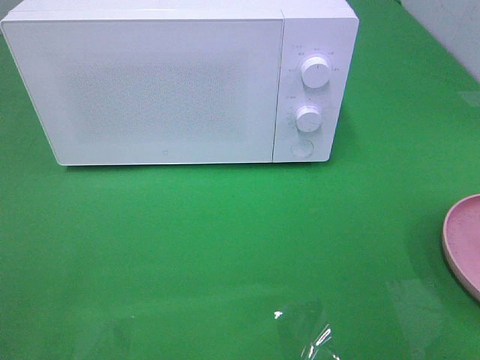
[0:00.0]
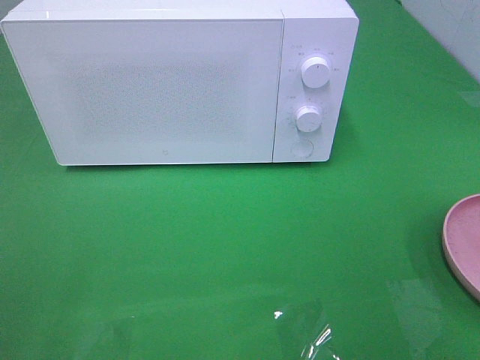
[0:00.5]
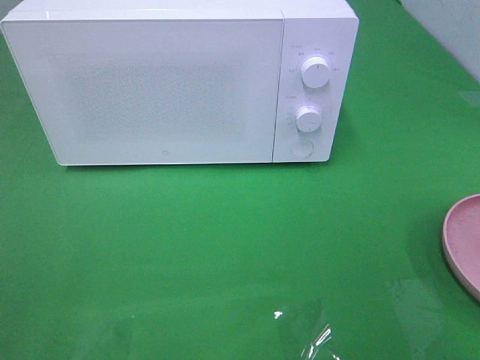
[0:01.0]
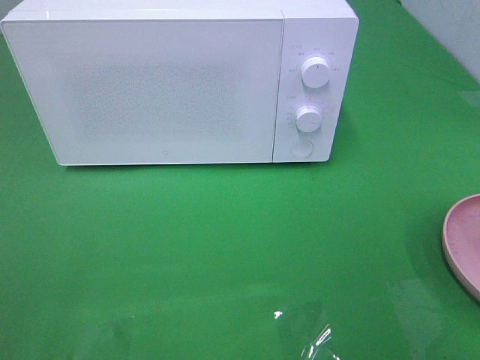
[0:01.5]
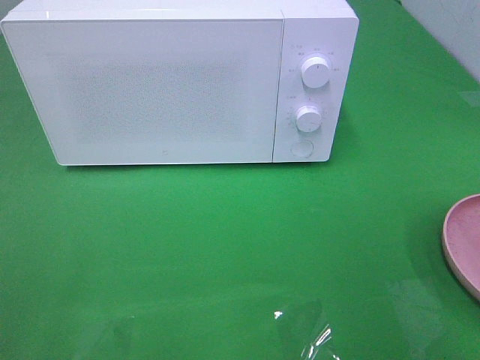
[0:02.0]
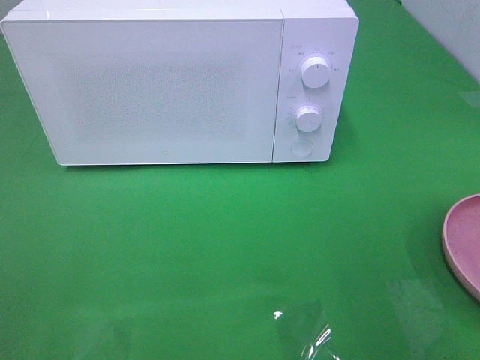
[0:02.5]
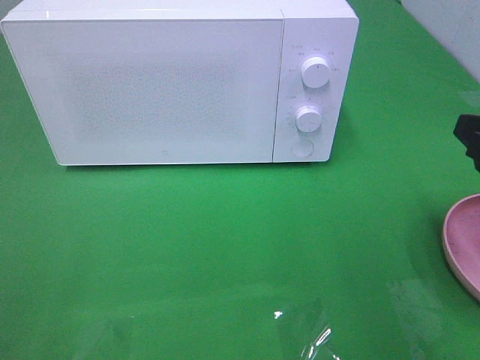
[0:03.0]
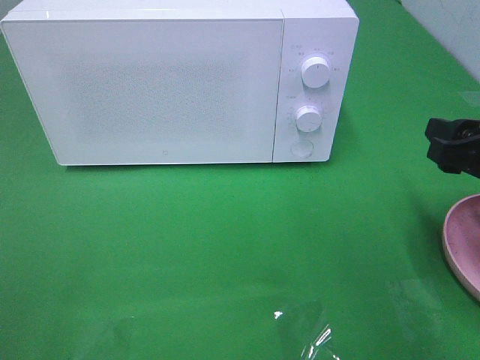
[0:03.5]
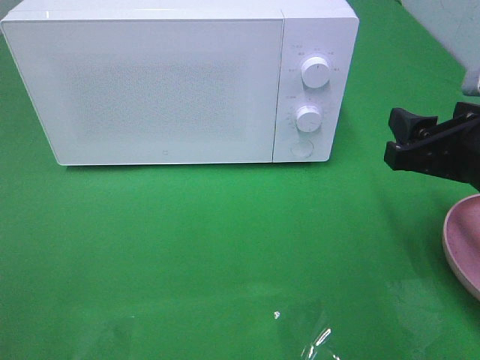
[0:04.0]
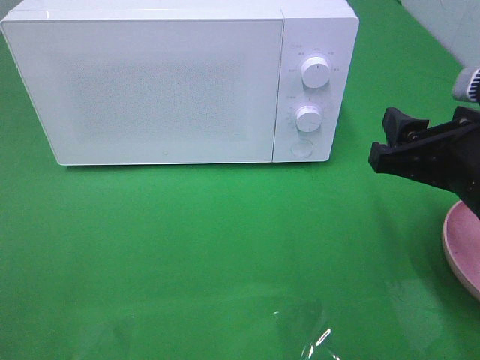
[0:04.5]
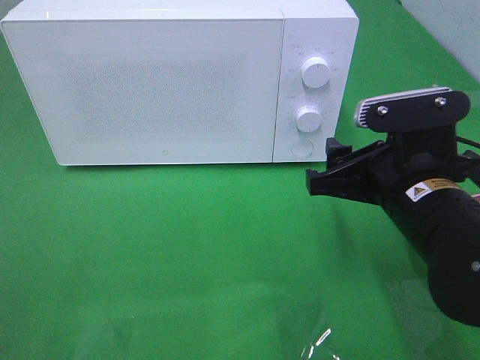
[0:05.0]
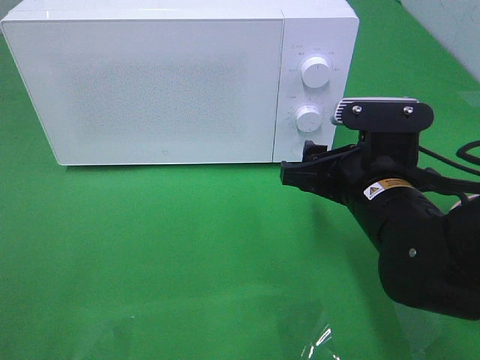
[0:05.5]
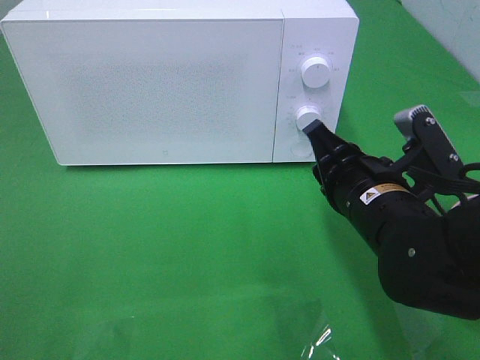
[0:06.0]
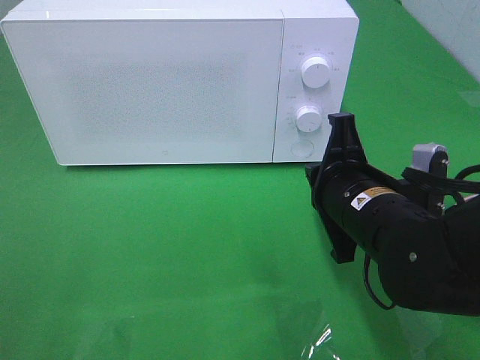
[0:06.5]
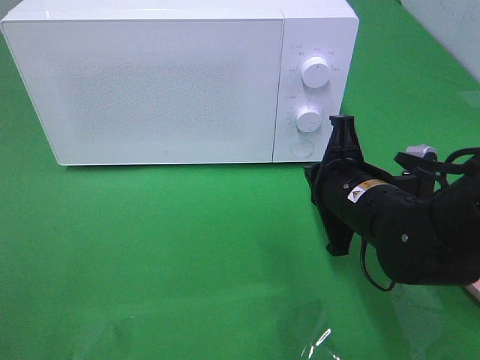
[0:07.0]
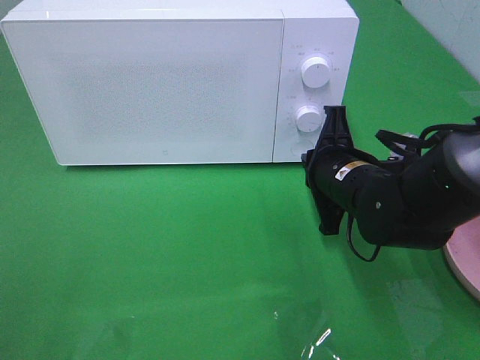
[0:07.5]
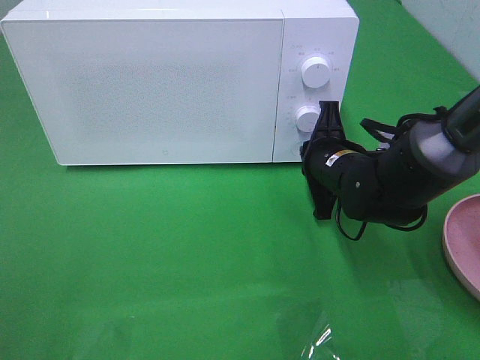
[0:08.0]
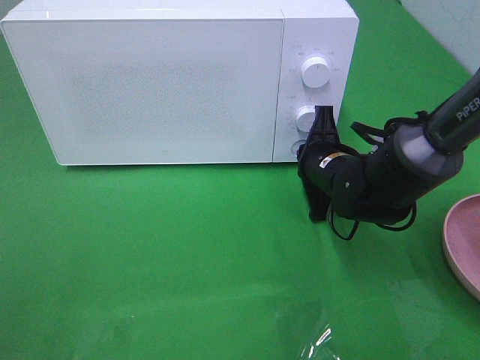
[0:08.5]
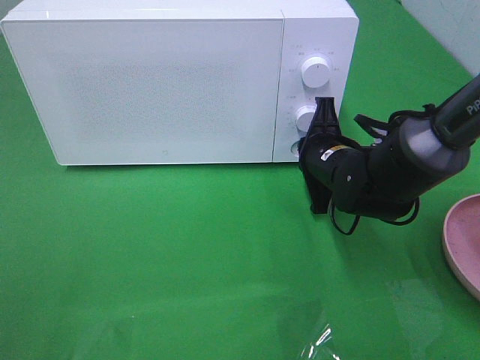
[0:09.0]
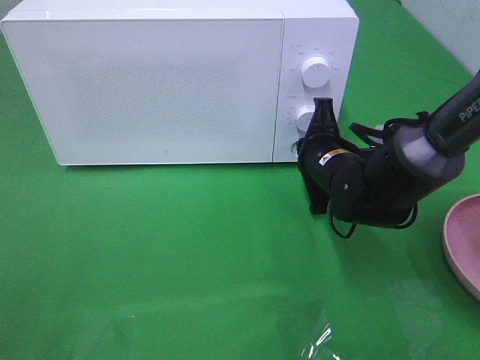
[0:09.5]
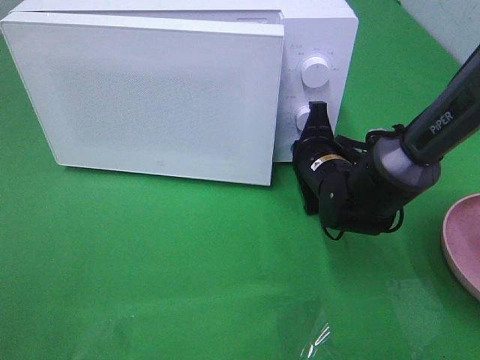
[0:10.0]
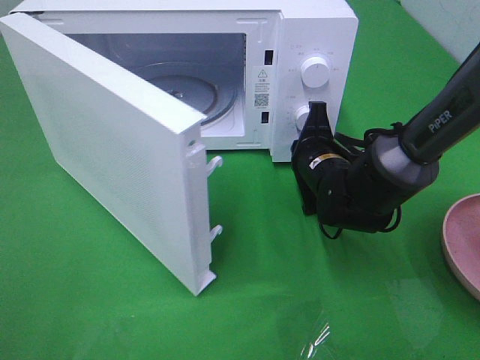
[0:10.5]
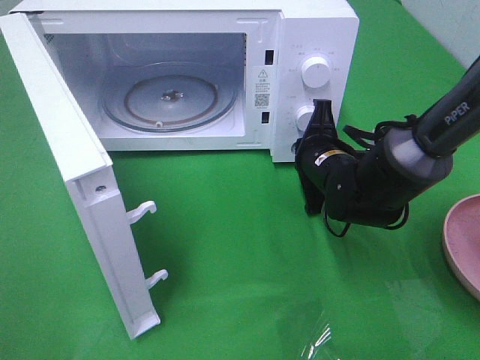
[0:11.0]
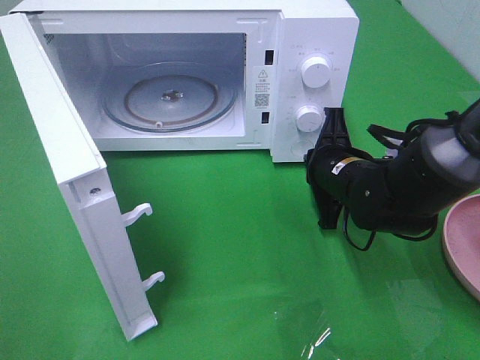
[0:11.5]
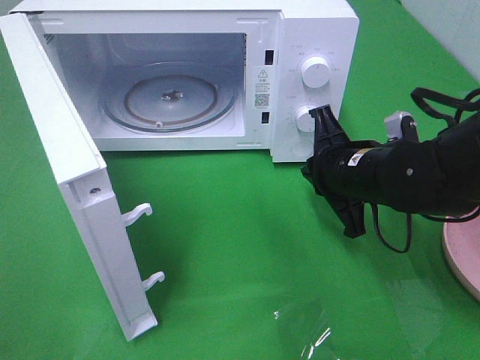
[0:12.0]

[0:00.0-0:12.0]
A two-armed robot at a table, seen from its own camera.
Task of the whole recording: Heat the burger.
Step, 0.0 to 11.5 s: Right hand: press the switch.
2.0 to 4.0 s: The right gripper travels forward, downward and to the left by some 15 cm.
4.0 to 6.0 s: The right gripper moves to the left and downward, approximately 10 cm, and closes its fingers.
6.0 to 8.0 s: The right gripper goes some 10 cm forward and downward.
8.0 to 10.0 s: The grippers make only small movements.
10.0 to 12.0 s: The right gripper heads backward and upward, covering some 10 cm.

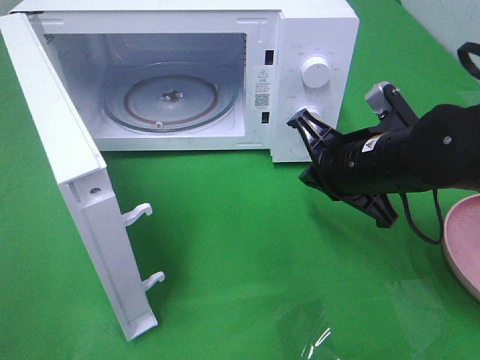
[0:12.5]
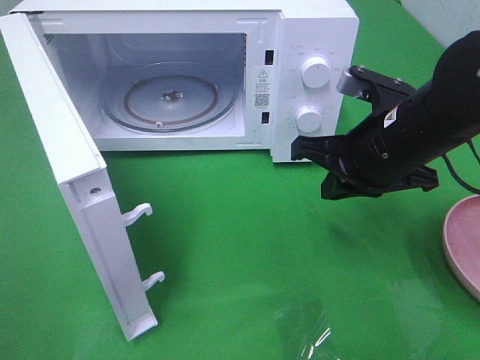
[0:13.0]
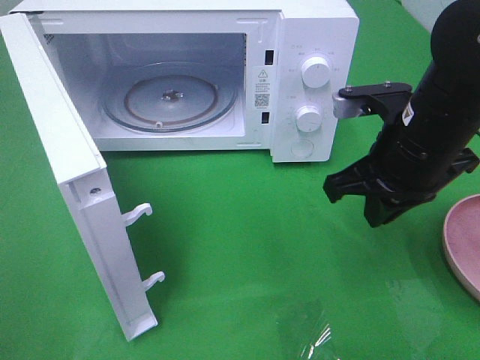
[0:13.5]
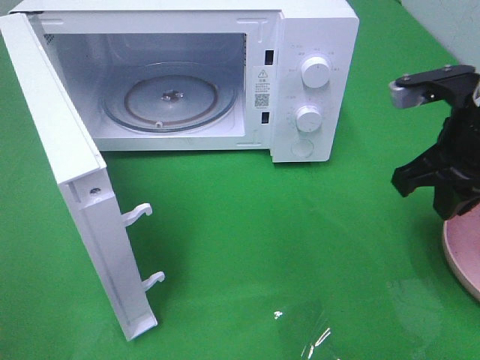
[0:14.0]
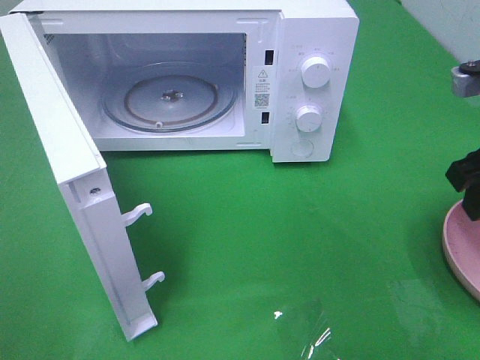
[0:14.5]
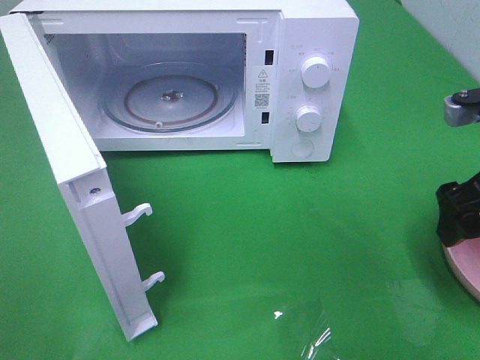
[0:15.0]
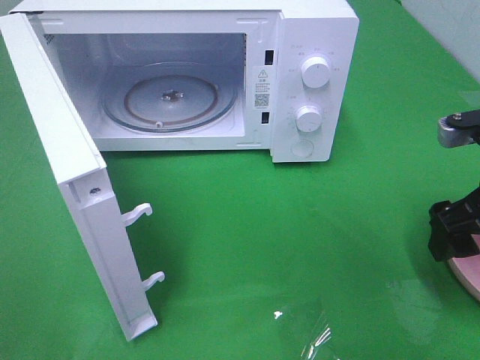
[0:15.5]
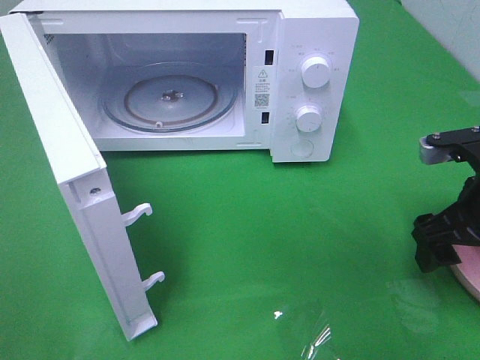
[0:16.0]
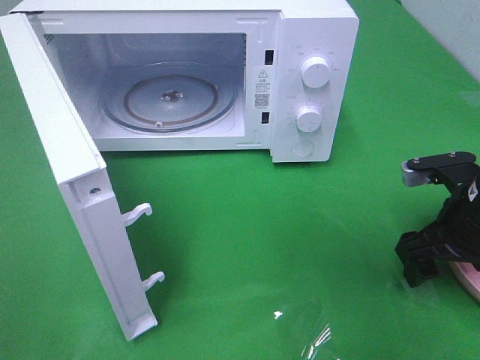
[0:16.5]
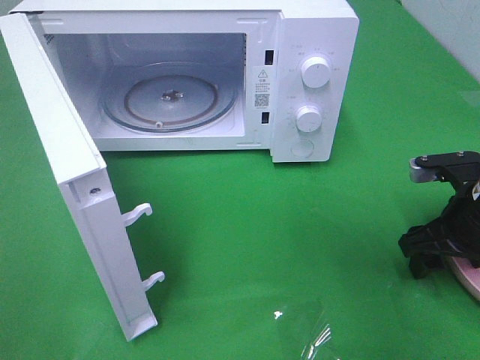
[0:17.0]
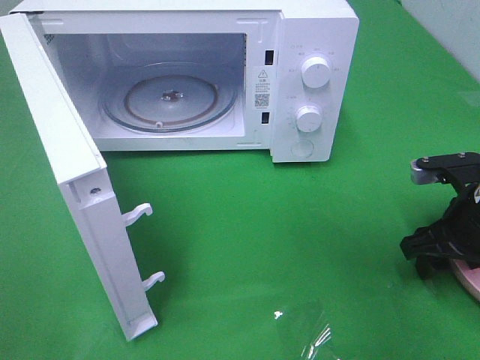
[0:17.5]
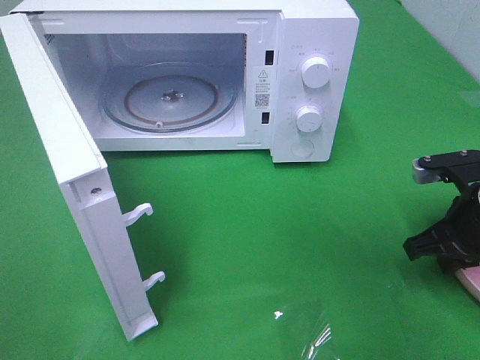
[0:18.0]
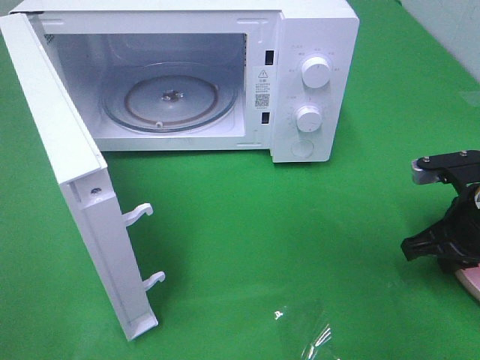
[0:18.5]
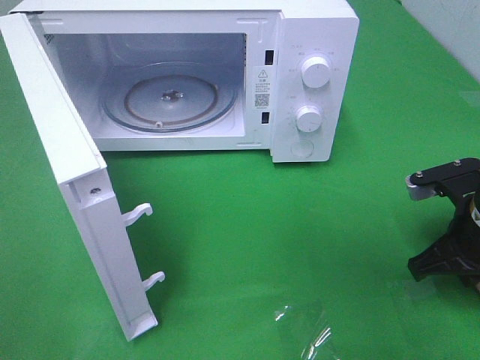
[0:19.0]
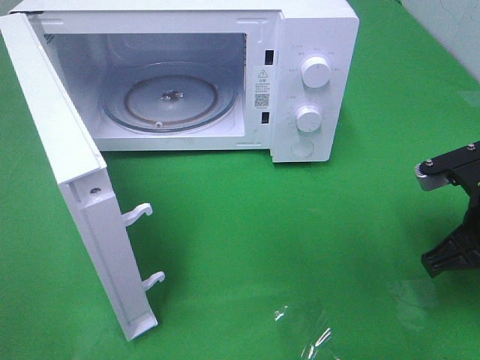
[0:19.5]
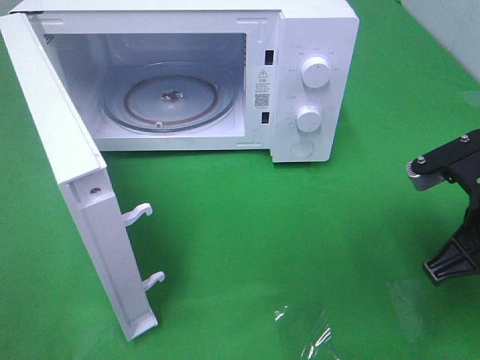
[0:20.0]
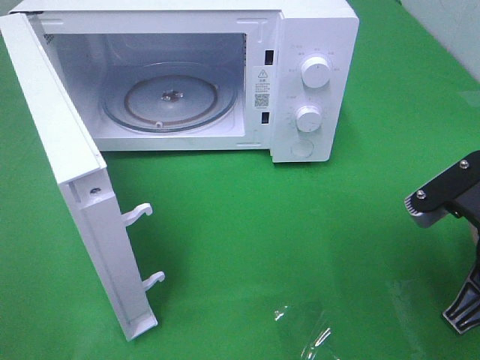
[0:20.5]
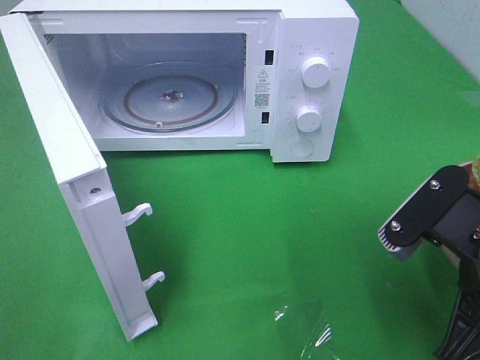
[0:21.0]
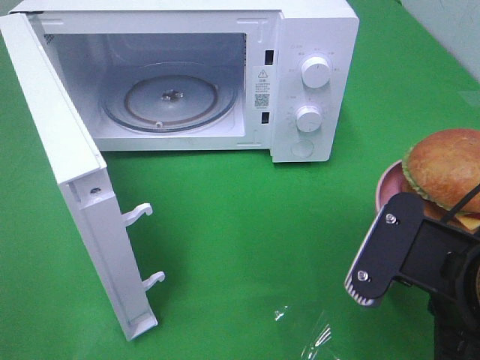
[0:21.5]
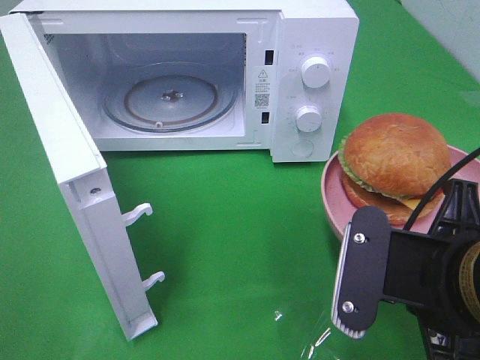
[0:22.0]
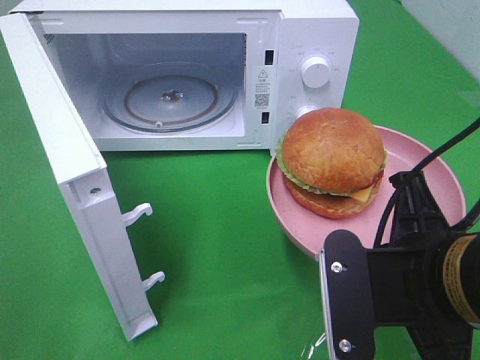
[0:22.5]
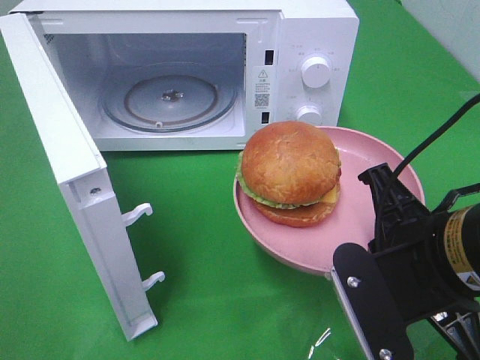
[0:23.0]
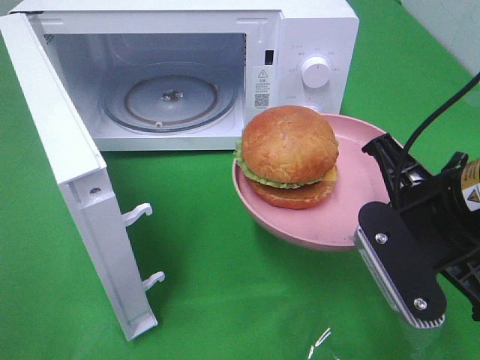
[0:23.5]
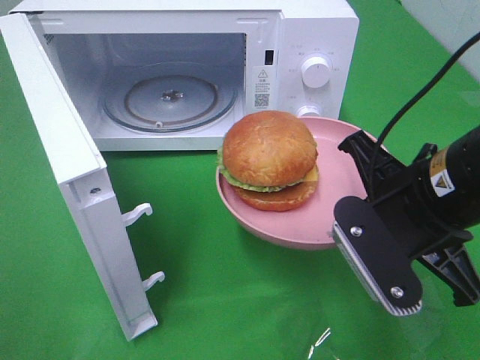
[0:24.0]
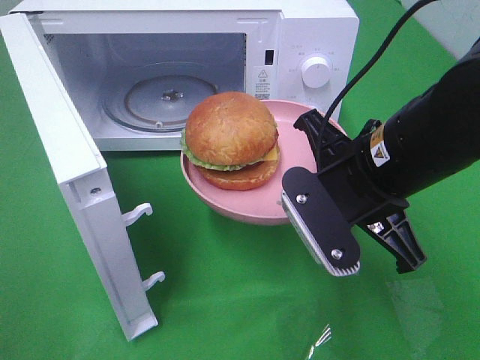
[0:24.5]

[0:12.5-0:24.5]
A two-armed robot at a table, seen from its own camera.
Task of the whole recording: Heat the burger.
Step, 12.5 to 19.0 s: Right hand: grab the plate with the hamburger.
12.5 to 14.5 s: The right gripper shifts roughly 15 cm to the right and upward, and opens its fingers.
14.5 to 16.5 s: The right gripper travels downward by approximately 10 cm.
16.5 to 18.5 s: The right gripper closes up.
18.5 to 20.5 s: The right gripper goes some 15 cm backward, upward and to the left.
20.5 to 22.5 s: The right gripper is displaced to the left by approximately 10 cm.
22.5 to 24.5 s: The right gripper travels forward by about 10 cm.

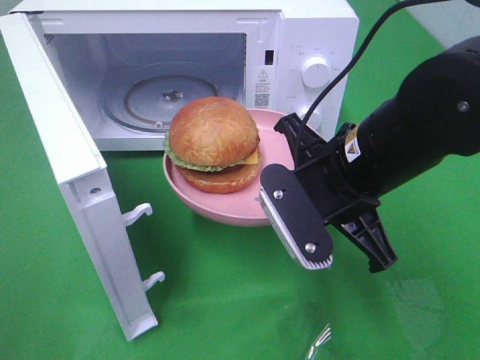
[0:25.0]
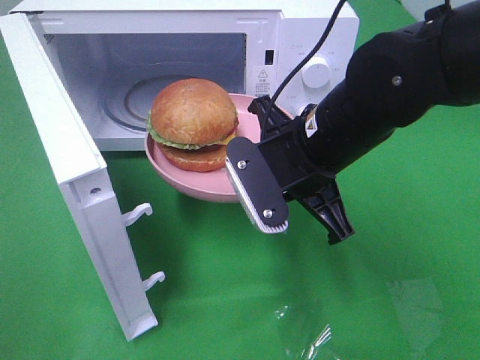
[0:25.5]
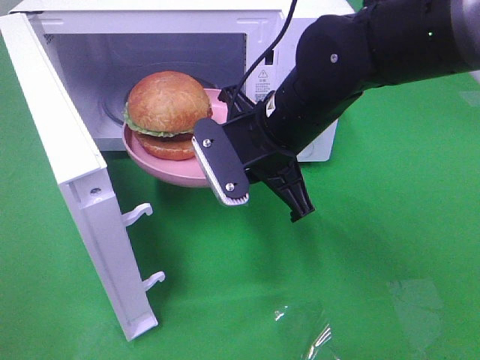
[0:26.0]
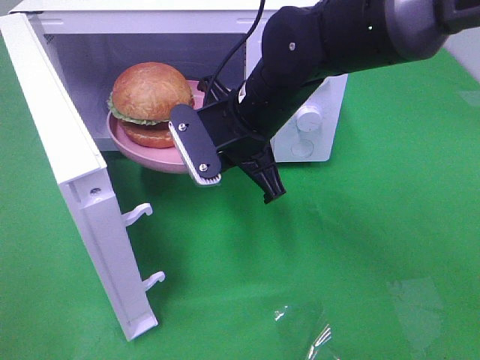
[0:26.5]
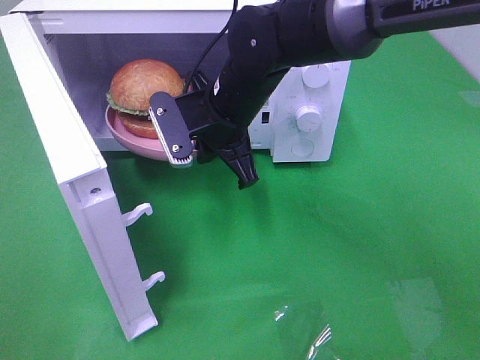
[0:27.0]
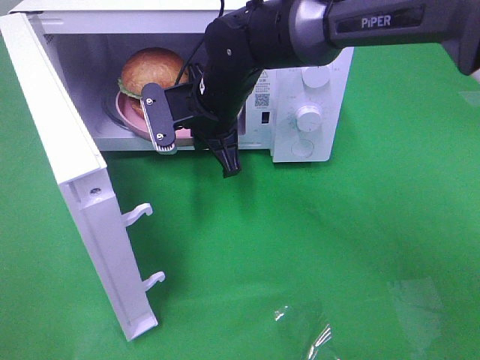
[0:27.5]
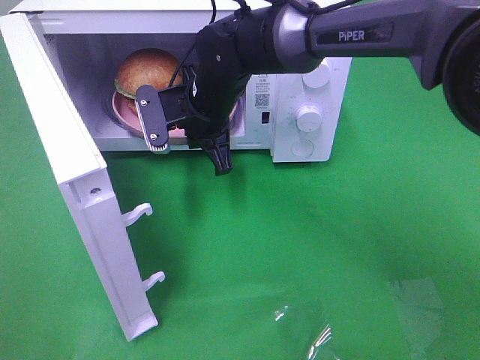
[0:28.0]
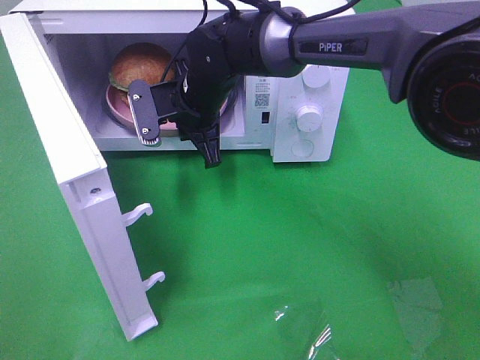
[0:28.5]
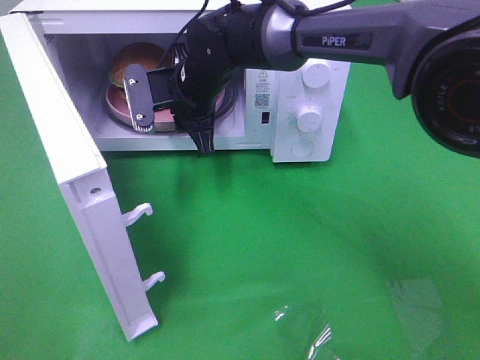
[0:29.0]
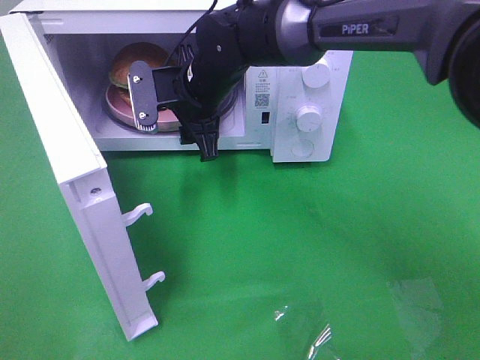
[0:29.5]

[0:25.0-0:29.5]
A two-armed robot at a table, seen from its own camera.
Task of the whole recording: Heat the burger.
25.0 to 27.0 s: The right gripper moves forward and to the left, approximately 15 cm.
27.0 to 29.5 s: The right gripper moves roughly 5 cm, and opens.
